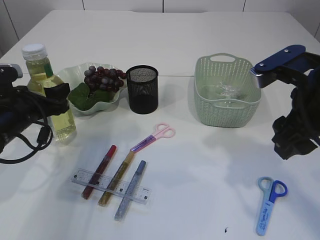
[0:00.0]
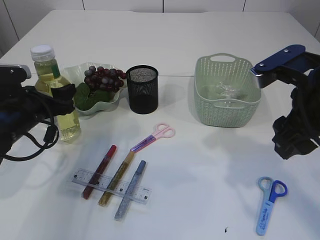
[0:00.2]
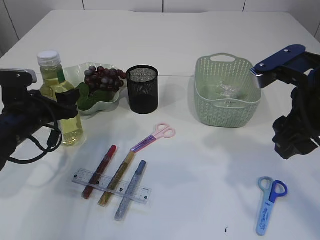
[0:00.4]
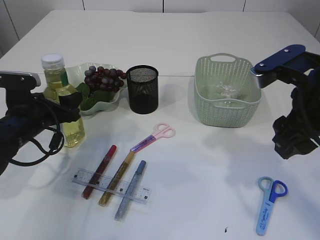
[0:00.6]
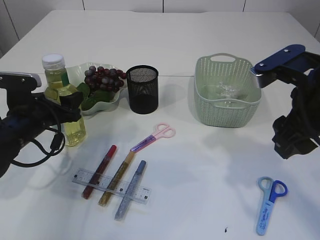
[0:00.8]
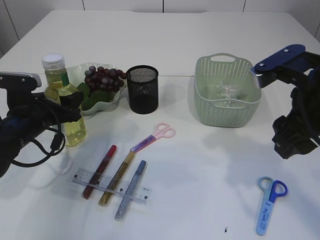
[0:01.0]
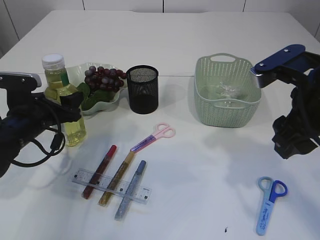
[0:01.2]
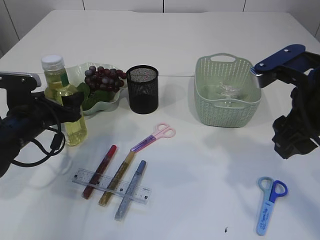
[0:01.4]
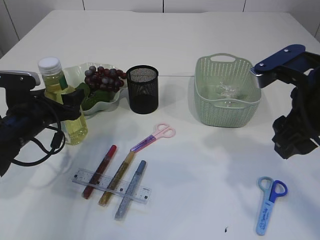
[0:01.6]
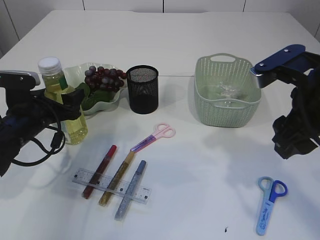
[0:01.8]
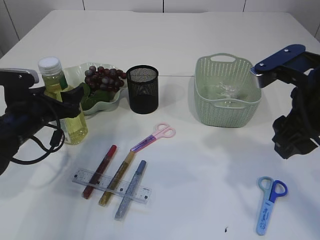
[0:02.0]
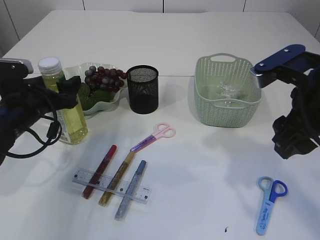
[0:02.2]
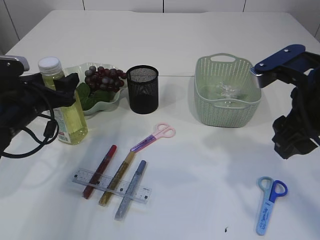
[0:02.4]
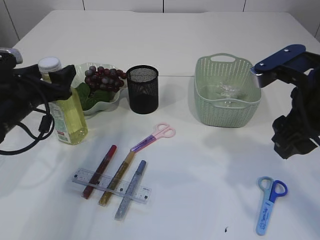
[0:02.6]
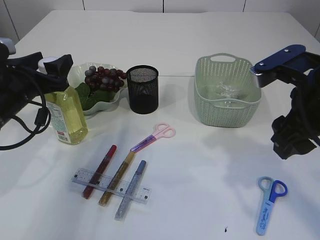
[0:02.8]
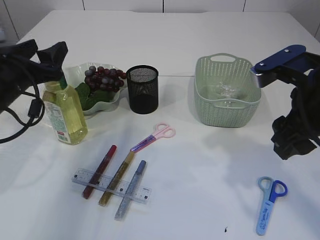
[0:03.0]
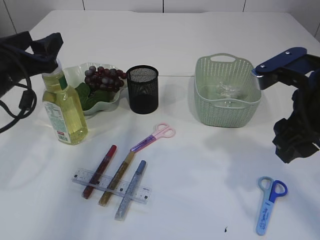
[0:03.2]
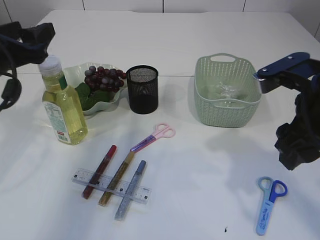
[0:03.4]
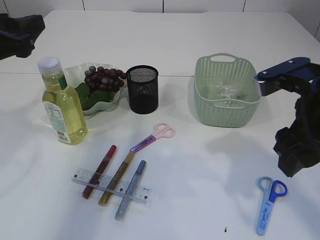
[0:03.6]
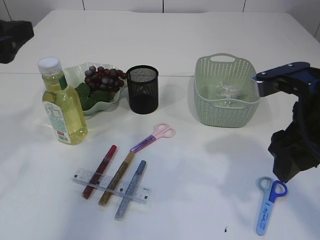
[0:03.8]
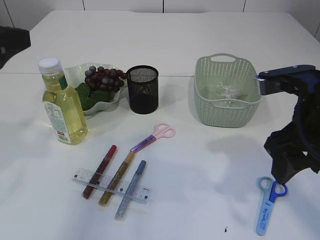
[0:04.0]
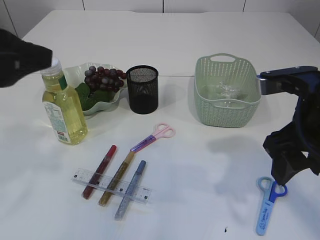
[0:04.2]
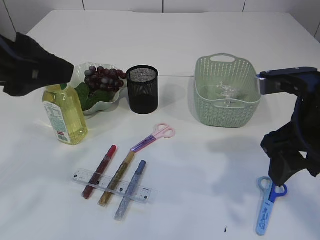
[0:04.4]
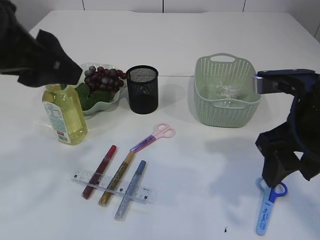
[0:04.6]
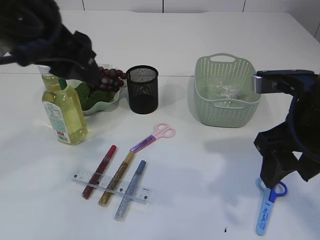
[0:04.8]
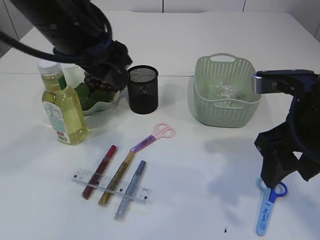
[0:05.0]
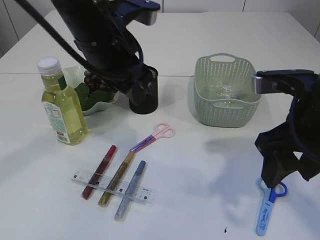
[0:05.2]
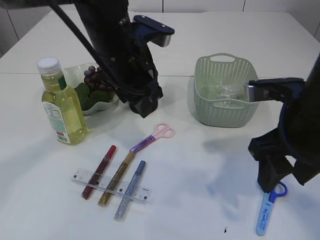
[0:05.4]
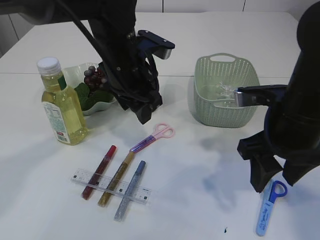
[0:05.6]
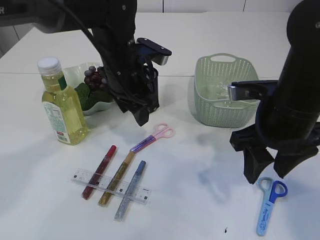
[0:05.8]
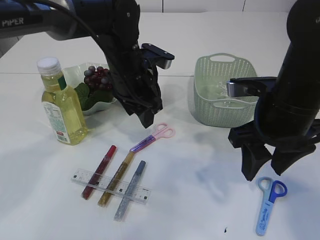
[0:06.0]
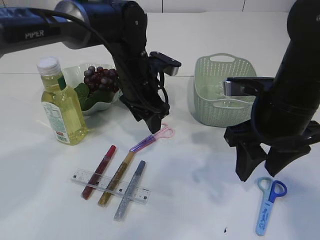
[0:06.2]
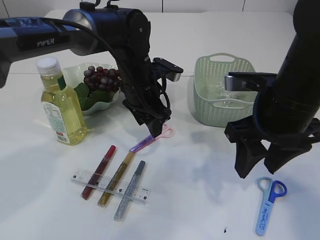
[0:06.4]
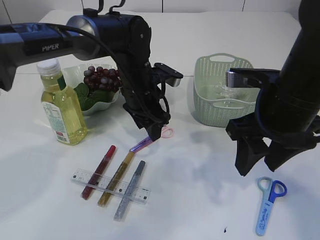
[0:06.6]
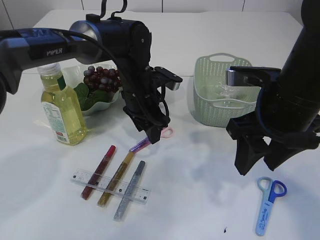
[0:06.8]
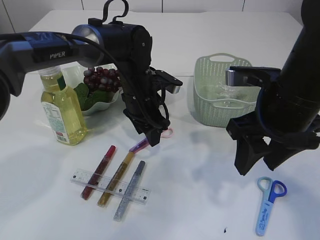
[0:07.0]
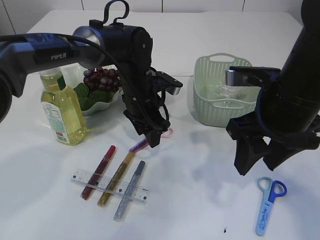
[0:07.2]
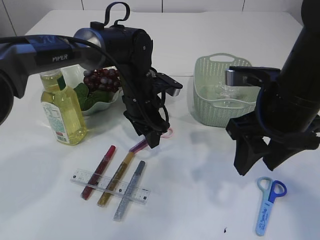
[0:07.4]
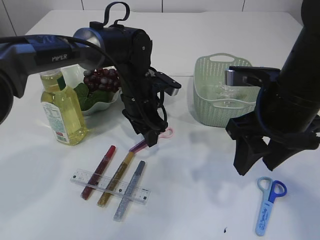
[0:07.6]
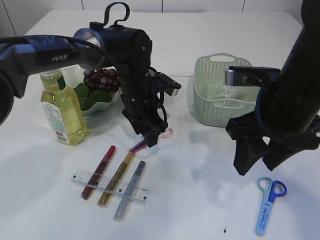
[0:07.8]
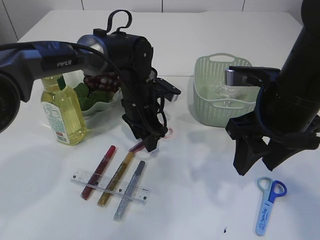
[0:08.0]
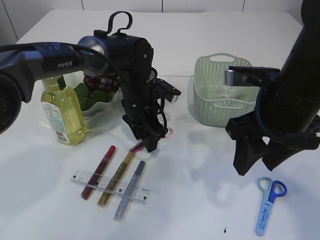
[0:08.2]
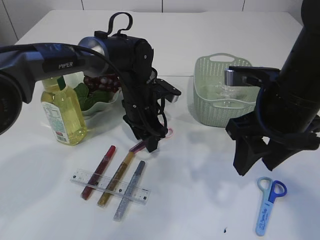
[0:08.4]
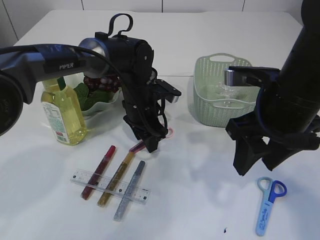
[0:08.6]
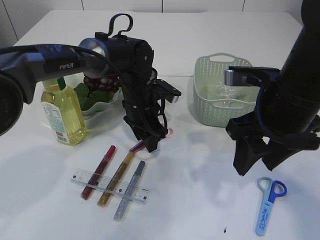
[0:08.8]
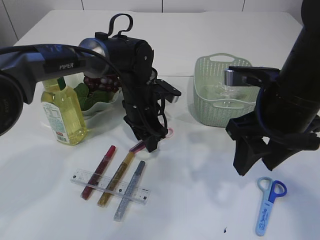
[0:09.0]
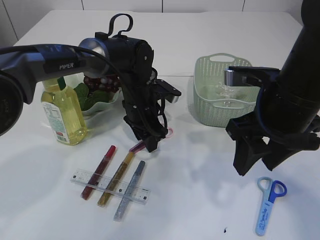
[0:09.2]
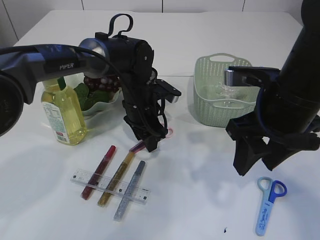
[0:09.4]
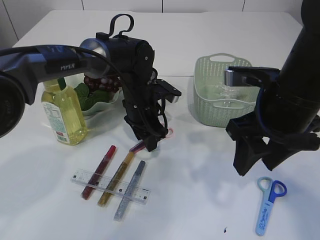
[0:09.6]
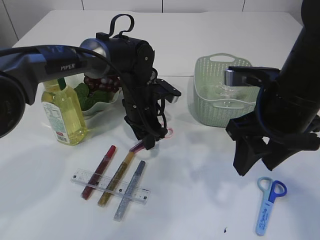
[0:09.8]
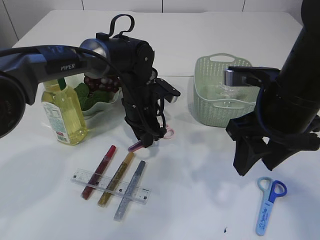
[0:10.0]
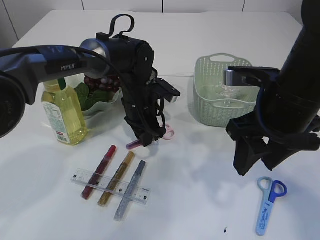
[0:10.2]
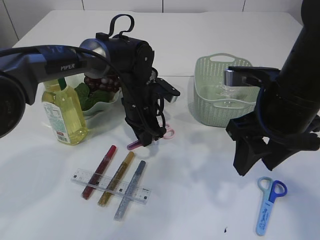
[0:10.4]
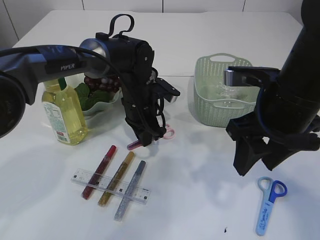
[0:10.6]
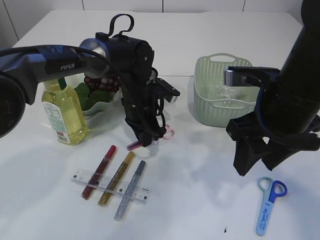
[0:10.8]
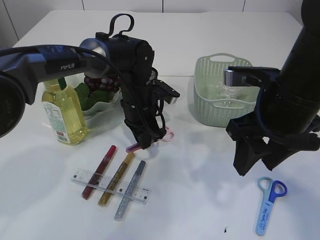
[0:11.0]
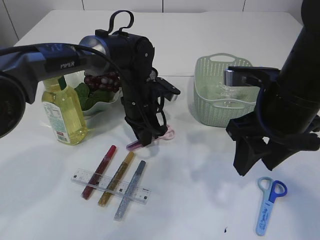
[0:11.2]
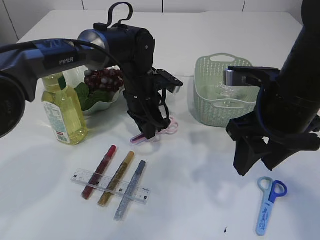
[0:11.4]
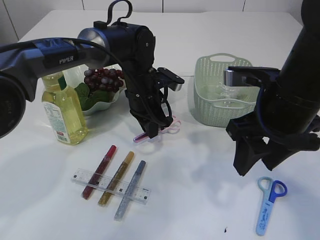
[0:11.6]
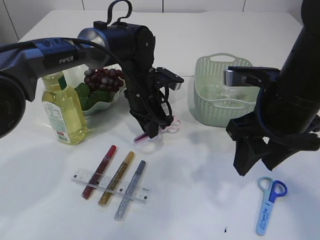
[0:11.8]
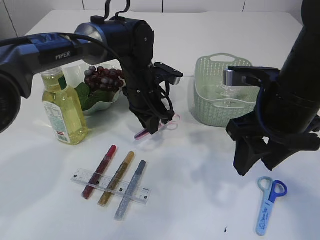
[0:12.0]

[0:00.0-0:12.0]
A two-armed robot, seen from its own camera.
Step, 0:00.0 to 0:03.0: Place the bottle.
0:00.0 to 0:01.6: The grippers move only a little.
0:01.6 to 0:03.0: The left gripper moves upward, approximately 10 cm.
0:03.0 to 0:04.4: The left gripper is displaced upward, backward and to the right by roughly 20 cm.
0:04.4 to 0:06.0: The left gripper is displaced forward, downward and to the right by about 30 cm. The right gripper ends up approximately 5 cm from where it was.
0:06.0 to 0:07.6: The left gripper travels downward by approximately 5 cm.
0:07.6 to 0:09.0: The grippers make only small movements.
0:09.0 to 0:10.4: The left gripper closes.
0:10.4 to 0:12.0: The grippers move only a little.

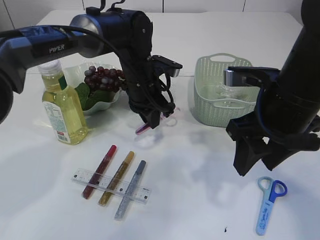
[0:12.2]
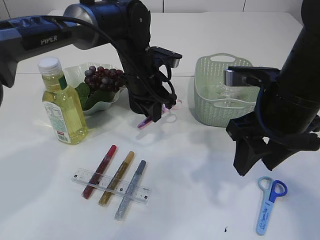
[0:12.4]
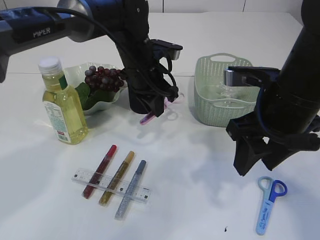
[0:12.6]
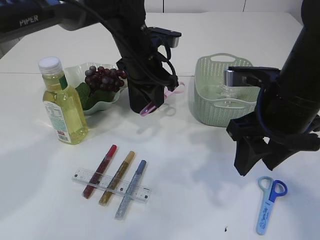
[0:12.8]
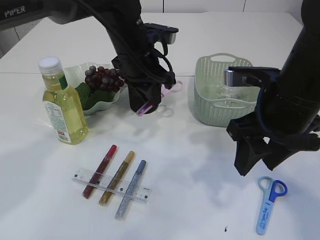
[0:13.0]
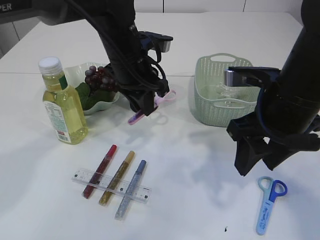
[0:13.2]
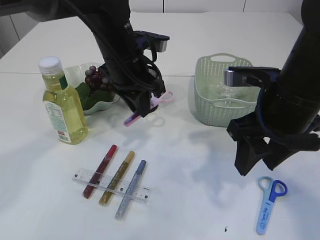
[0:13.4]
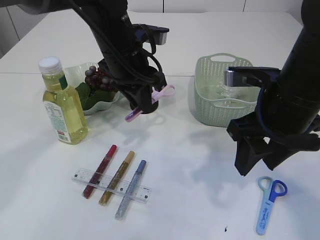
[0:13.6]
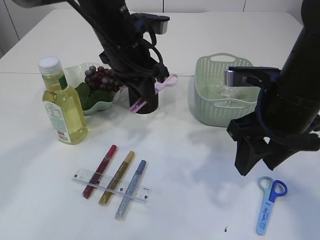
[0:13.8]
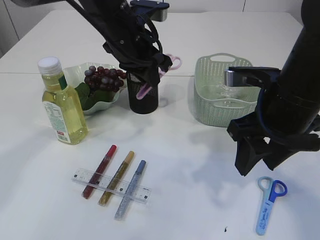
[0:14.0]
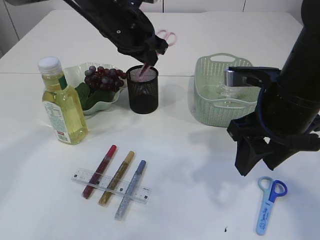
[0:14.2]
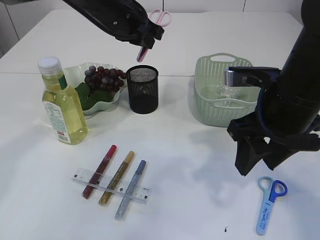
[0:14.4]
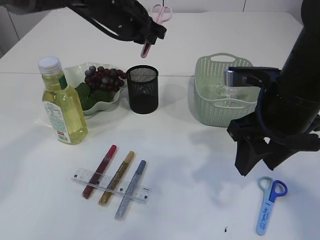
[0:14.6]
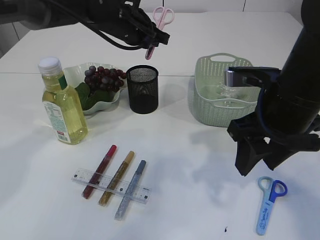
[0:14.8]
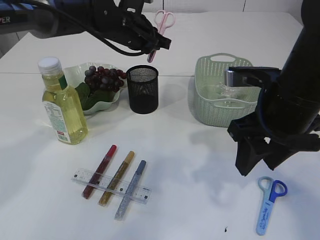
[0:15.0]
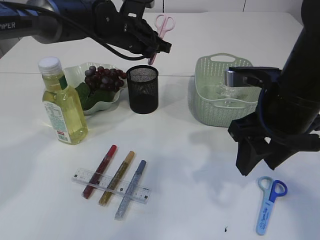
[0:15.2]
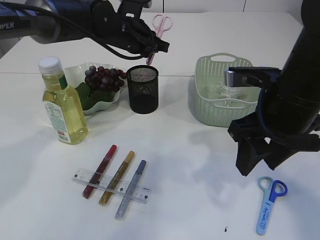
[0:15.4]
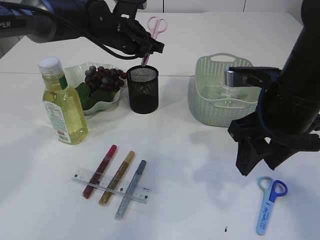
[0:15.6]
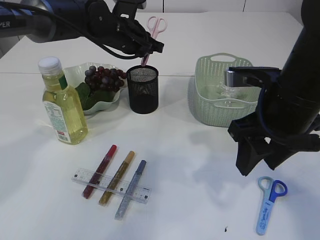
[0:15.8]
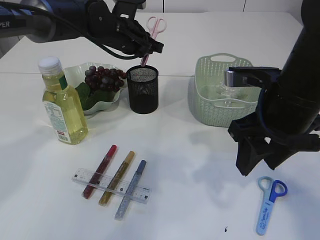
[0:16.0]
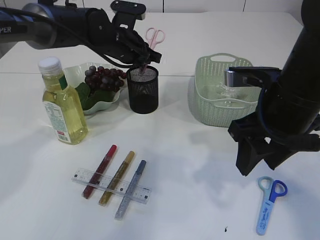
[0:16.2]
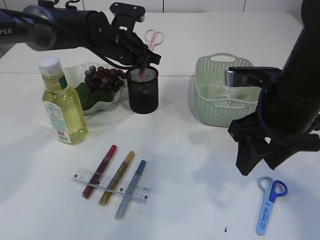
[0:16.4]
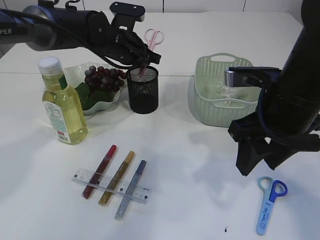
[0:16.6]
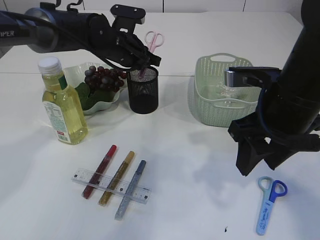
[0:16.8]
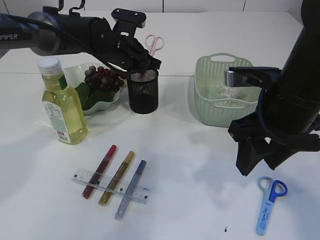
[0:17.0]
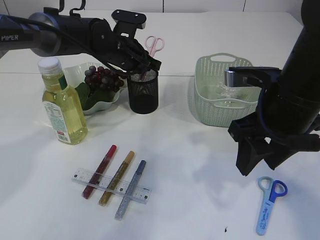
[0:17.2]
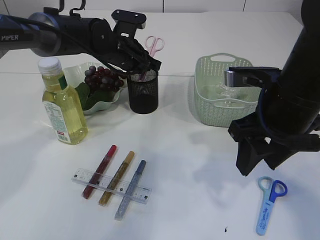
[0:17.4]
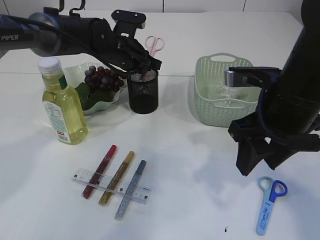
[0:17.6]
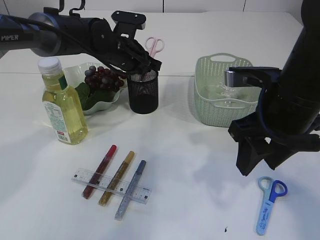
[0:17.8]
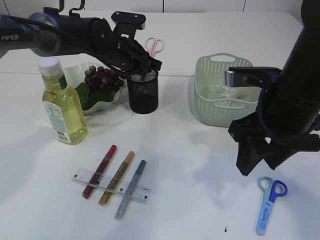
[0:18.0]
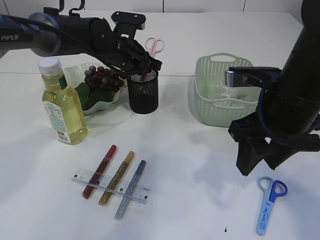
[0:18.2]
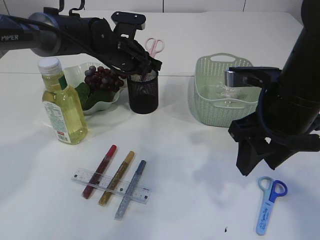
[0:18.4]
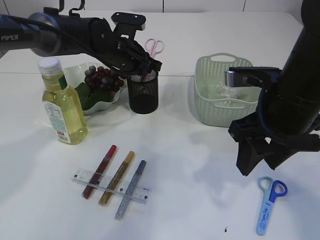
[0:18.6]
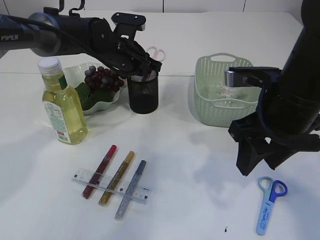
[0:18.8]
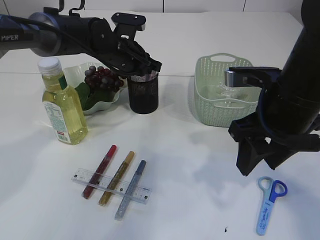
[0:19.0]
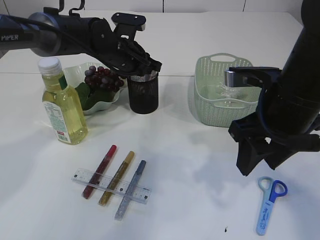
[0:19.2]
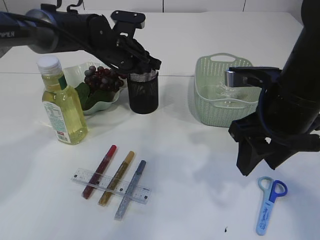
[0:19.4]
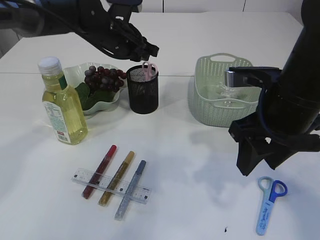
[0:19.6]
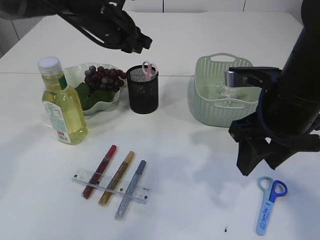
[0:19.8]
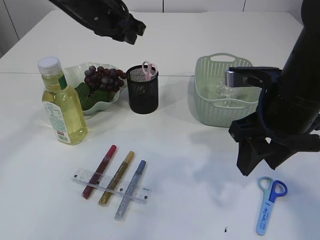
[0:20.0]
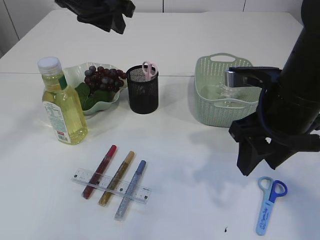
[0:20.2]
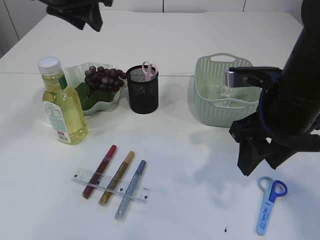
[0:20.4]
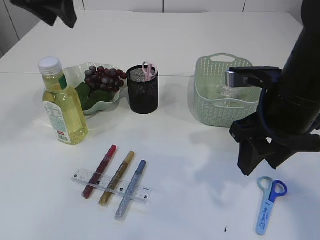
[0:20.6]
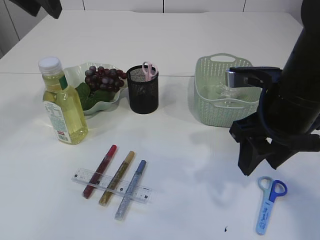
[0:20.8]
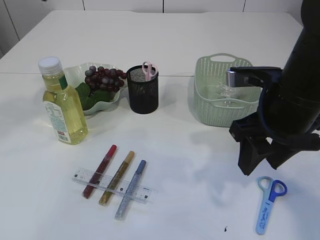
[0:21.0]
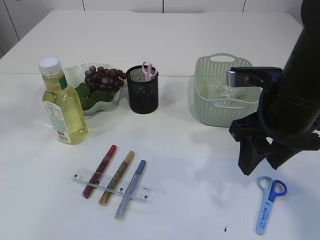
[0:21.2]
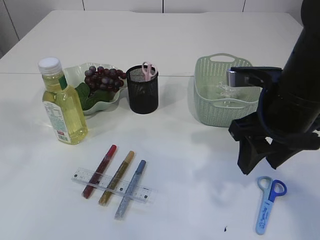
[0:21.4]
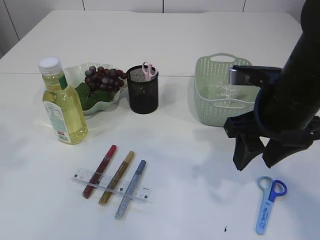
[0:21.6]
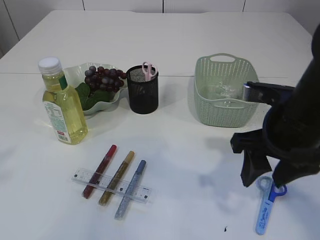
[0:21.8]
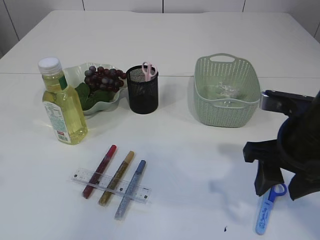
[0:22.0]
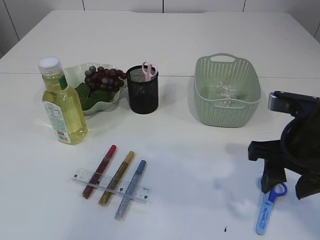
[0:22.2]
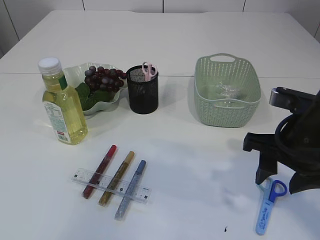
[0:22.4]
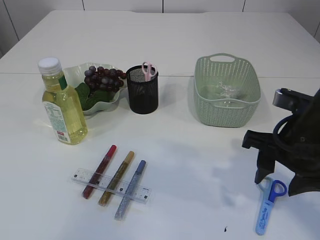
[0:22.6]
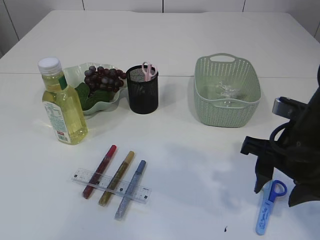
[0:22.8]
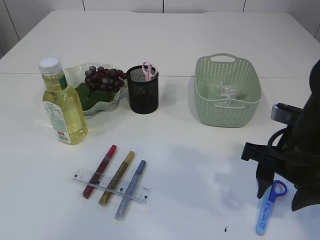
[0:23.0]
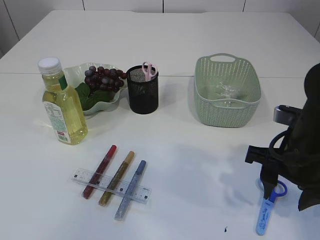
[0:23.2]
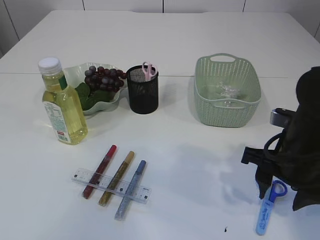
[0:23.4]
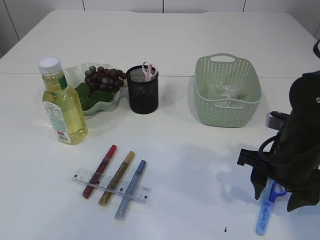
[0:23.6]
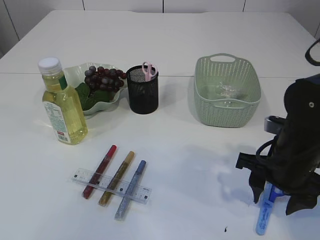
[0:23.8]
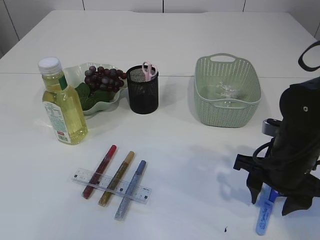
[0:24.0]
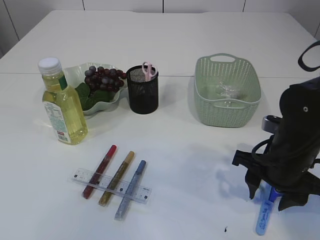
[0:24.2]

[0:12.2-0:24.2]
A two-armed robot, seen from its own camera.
Step, 0:12.4 to 0:19.8: Place the pink scissors into the pen holder.
0:12.2 to 0:13.8: The left gripper travels upward by roughly 10 cm.
0:13.8 to 0:15.2: The left gripper goes approximately 10 cm forward.
0:15.2 to 0:18.2: The grippers make only small movements.
0:18.2 to 0:19.8: The left gripper shifts about 5 cm upward.
0:19.8 to 0:21.2: The left gripper travels upward, backward and to the left by some 25 cm.
0:21.2 to 0:22.6: The right gripper shifts by roughly 5 cm.
0:22.6 to 0:24.2: The right gripper is displaced downward by some 5 cm.
